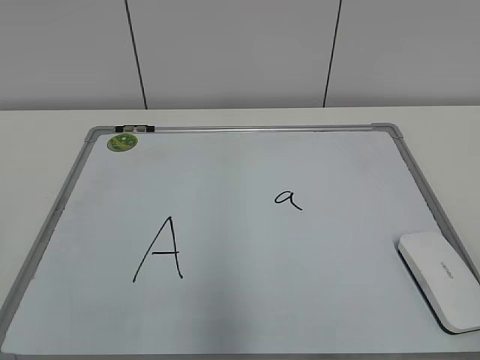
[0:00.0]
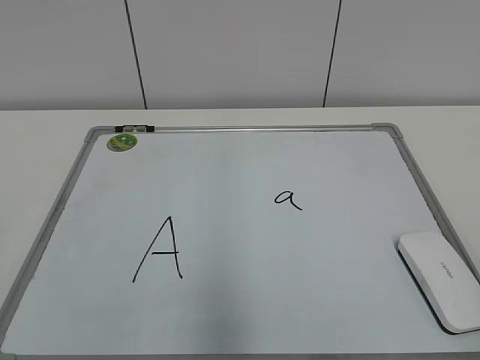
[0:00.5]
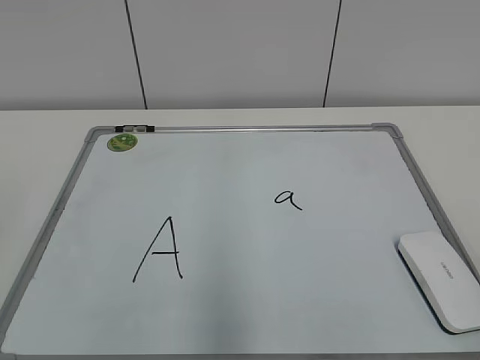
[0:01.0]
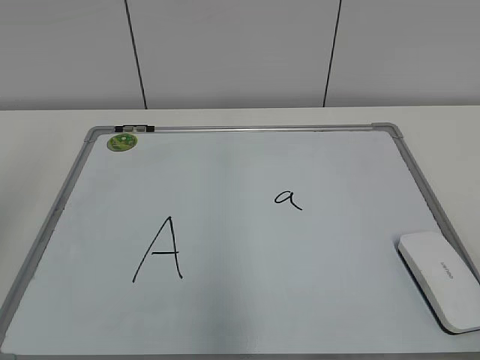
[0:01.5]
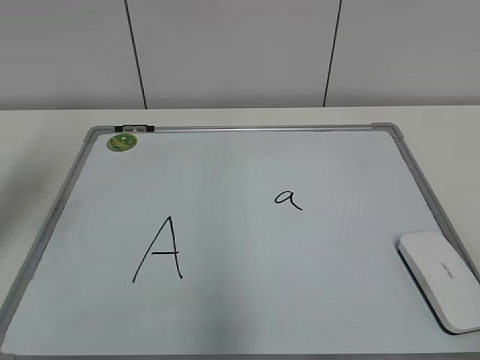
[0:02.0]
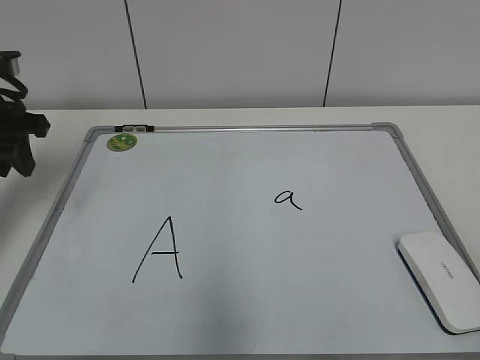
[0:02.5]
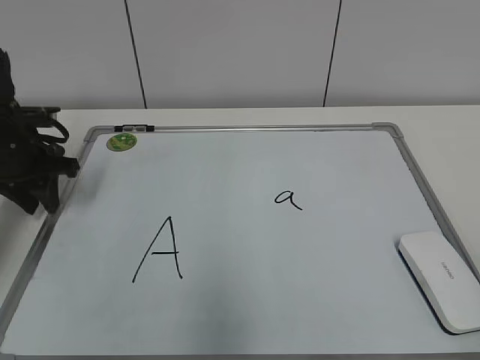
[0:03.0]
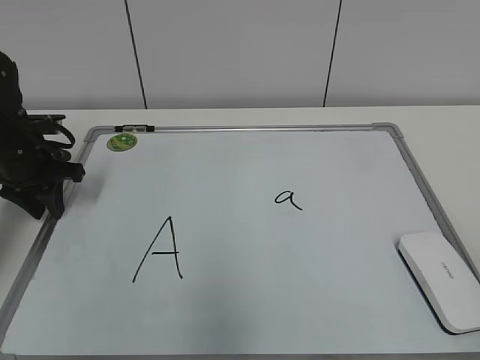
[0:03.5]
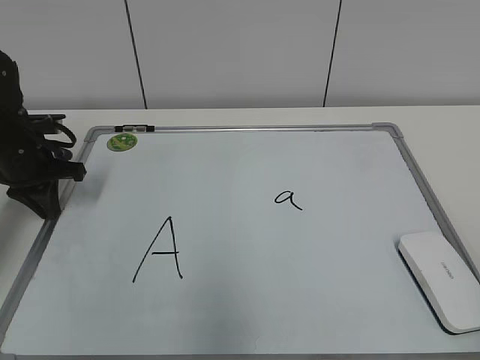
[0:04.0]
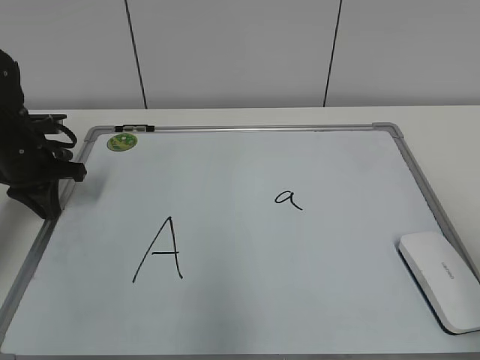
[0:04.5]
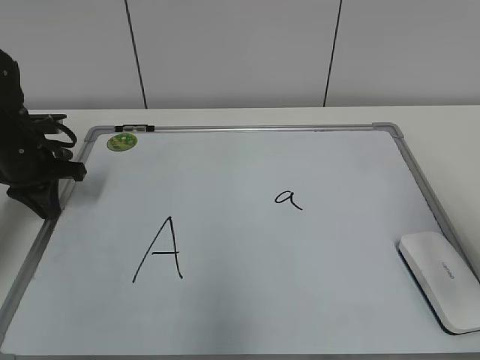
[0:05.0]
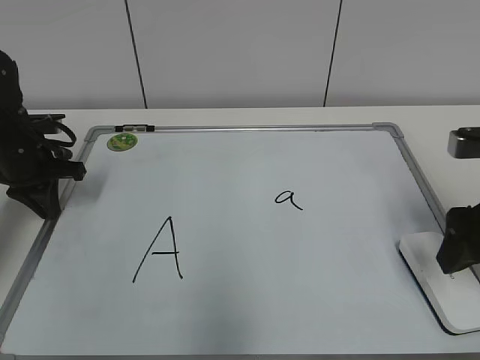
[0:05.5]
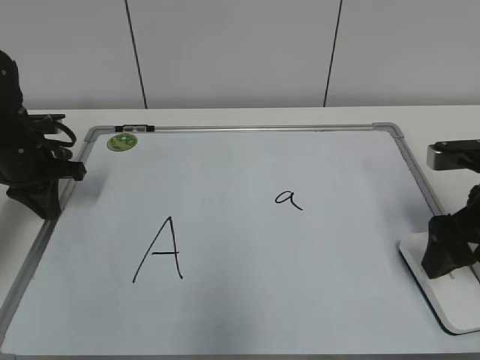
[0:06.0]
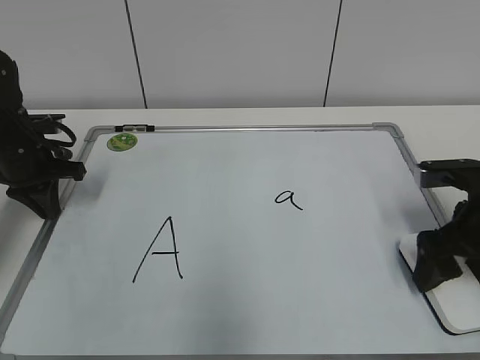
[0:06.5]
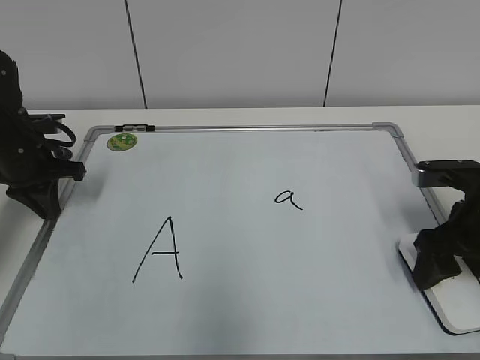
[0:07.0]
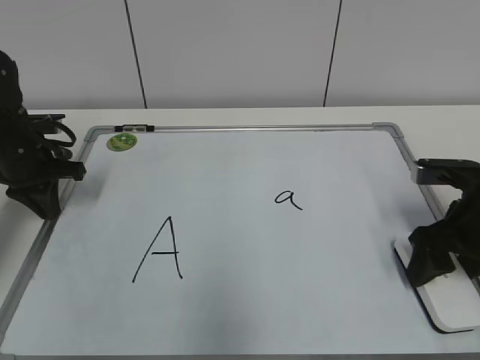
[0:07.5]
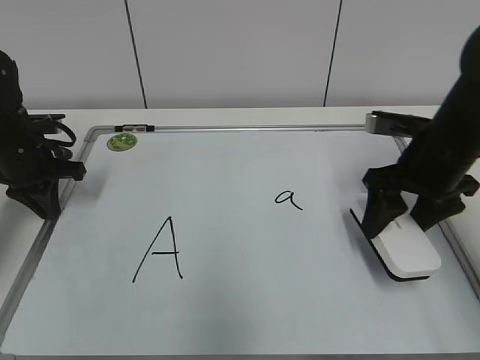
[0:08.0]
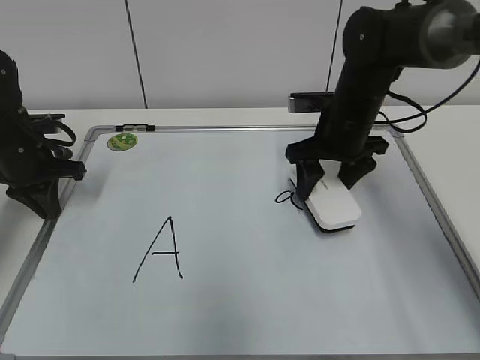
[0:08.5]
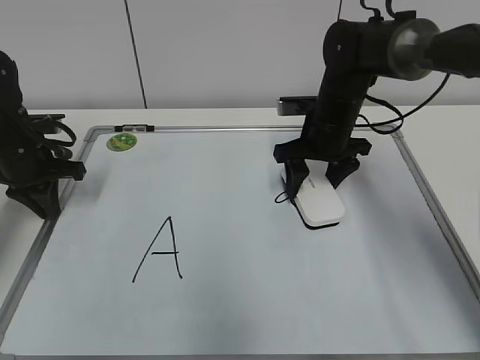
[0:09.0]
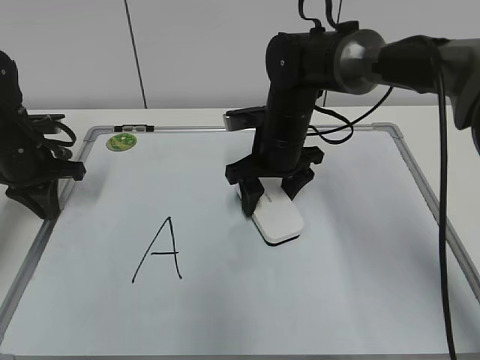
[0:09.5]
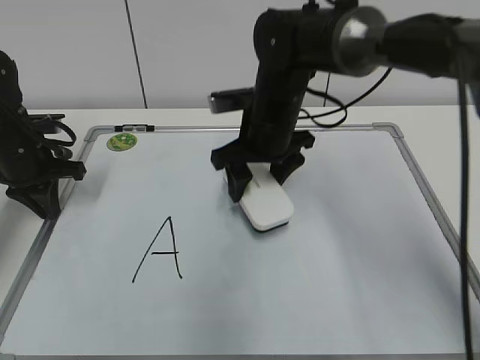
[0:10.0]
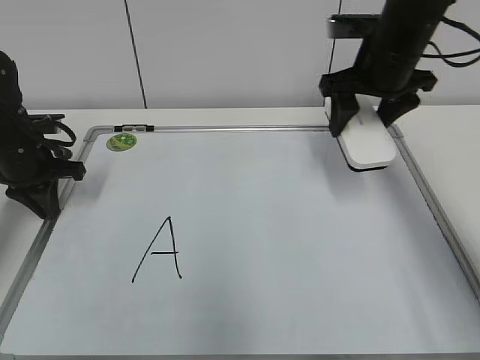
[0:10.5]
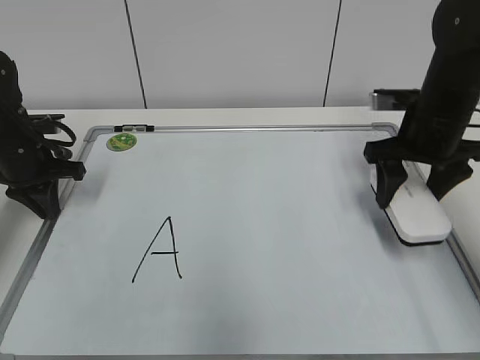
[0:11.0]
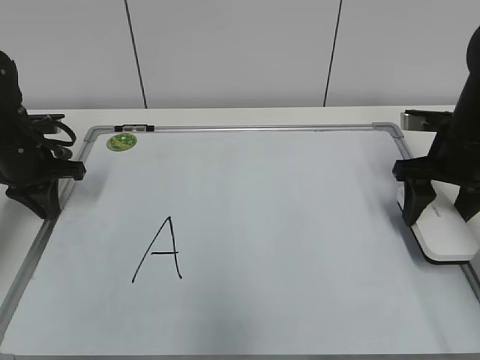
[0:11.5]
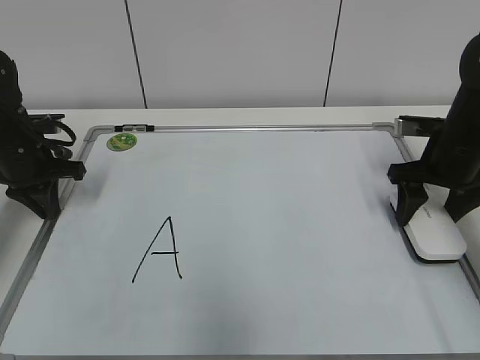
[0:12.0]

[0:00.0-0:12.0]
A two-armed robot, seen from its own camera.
Task of the whole recording: pick up the eraser on the blackboard and erase the letter "a".
Step, 0:00.0 to 0:03.5: Hold the drawing board steady with your left hand.
Step, 0:04.5 to 0:07.0: Grab the eraser with your right hand.
Step, 0:07.5 to 0:09.5: Erase the letter a with your right hand.
0:02.0 to 0:04.0: The left gripper heads downward and forward, covering roughly 20 cm, and closes up.
0:04.0 to 0:06.0: The right gripper shifts roughly 30 cm forward, and opens.
0:06.0 to 0:08.0: The right gripper travels forward by roughly 5 cm, and closes up.
0:08.0 to 0:10.0: The right gripper shifts about 20 cm to the left and forward.
0:10.0 to 0:12.0: The right gripper goes roughly 25 cm to the right.

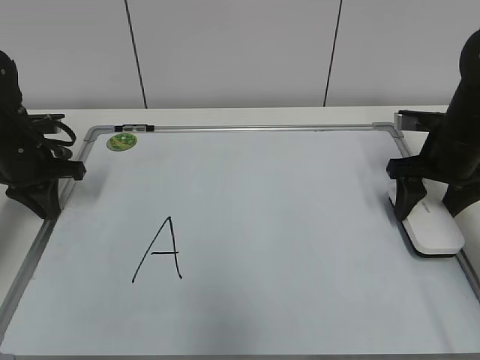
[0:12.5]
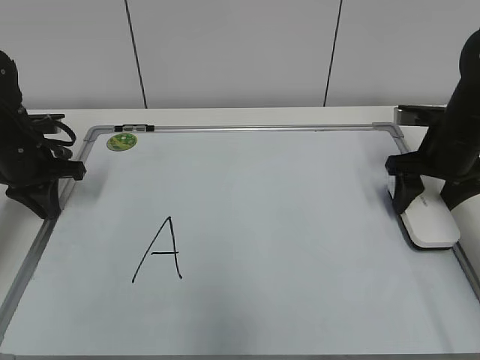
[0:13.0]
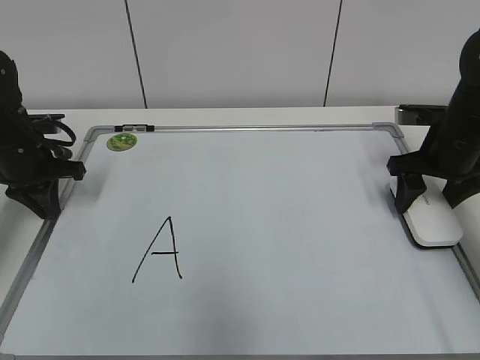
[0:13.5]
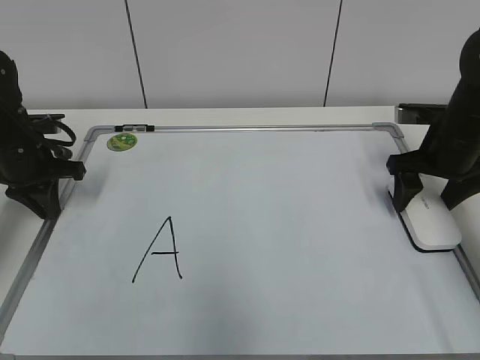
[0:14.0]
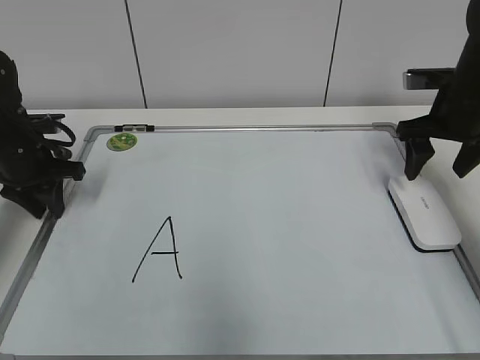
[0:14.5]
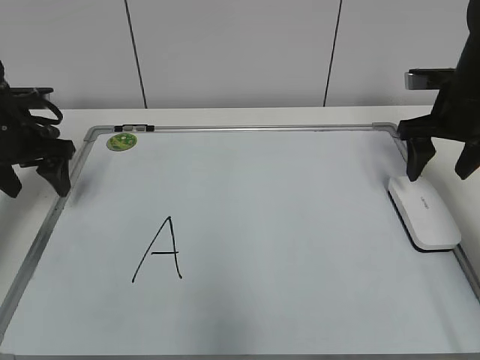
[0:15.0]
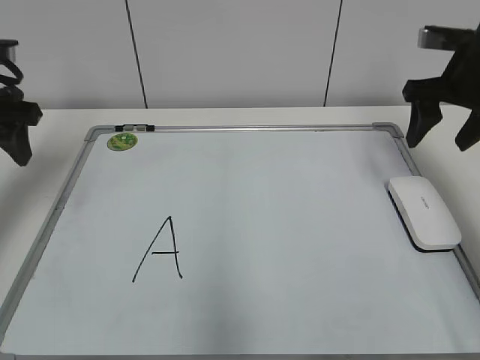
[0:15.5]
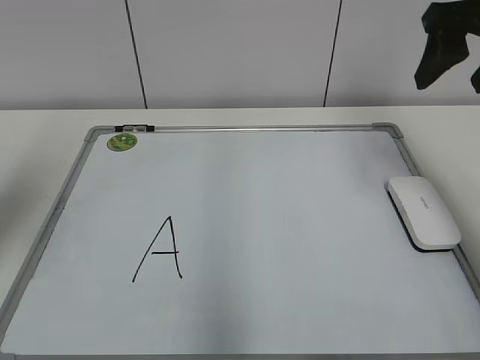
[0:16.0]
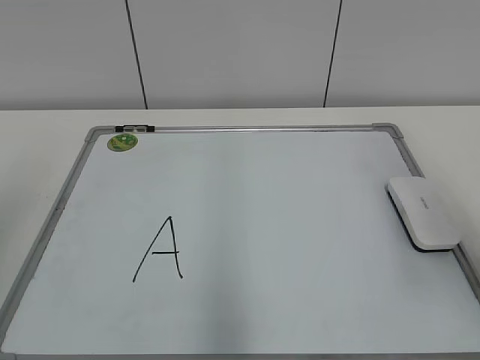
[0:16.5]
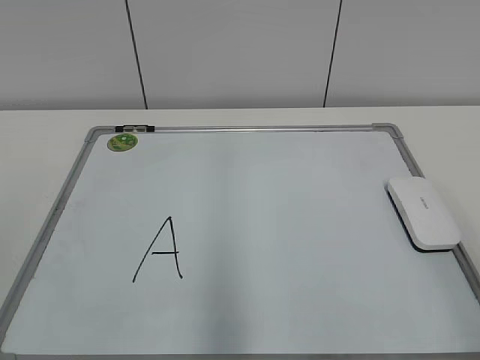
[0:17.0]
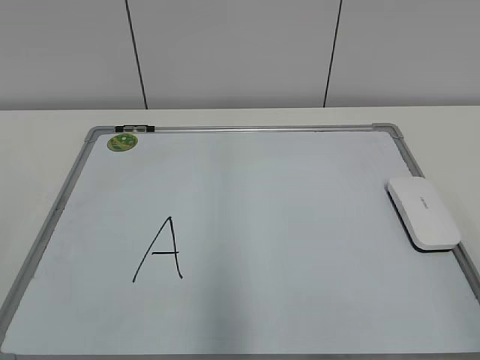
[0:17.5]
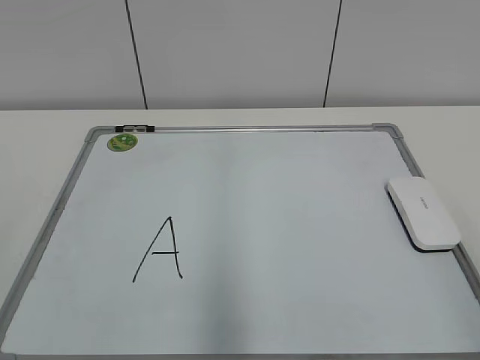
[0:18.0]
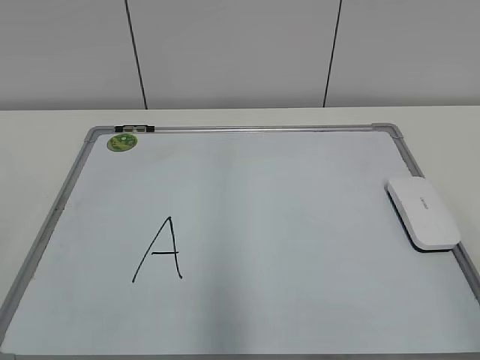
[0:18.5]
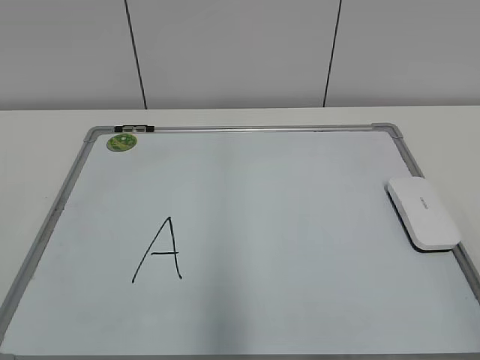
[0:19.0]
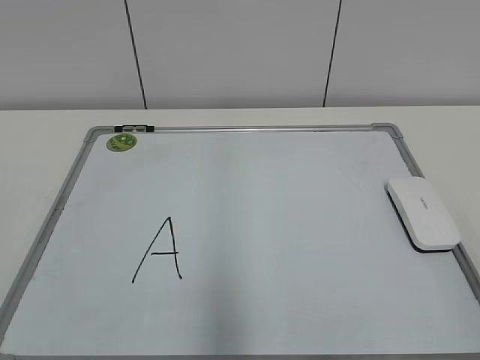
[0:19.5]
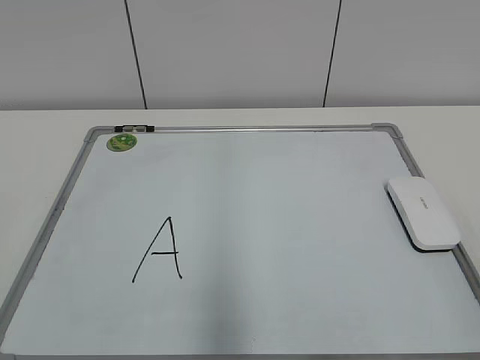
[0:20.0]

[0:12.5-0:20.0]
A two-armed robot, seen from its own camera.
Task of the whole recording: pick up the eraser on the blackboard and erase the letter "a".
0:12.5 to 0:14.5: The right gripper changes place by some 5 cm, and opens up.
0:14.5 to 0:16.5: The grippers both shift backward and upward by roughly 30 cm. The left gripper opens.
0:16.5 to 0:18.0: The right gripper is displaced backward by some 20 cm.

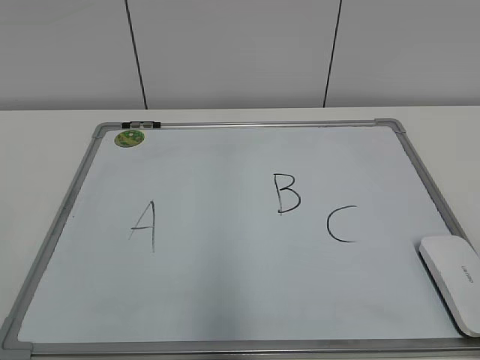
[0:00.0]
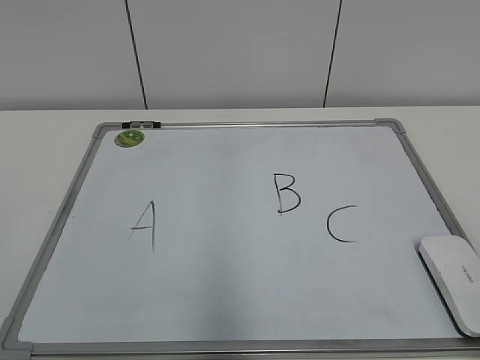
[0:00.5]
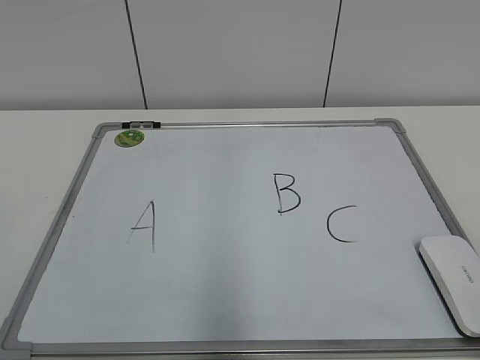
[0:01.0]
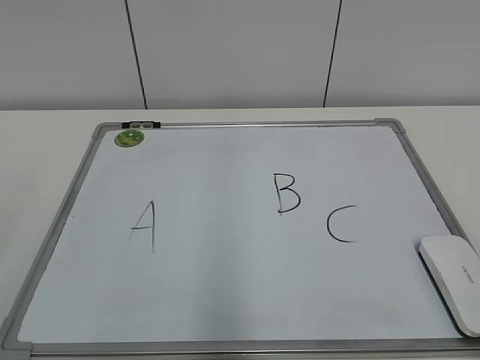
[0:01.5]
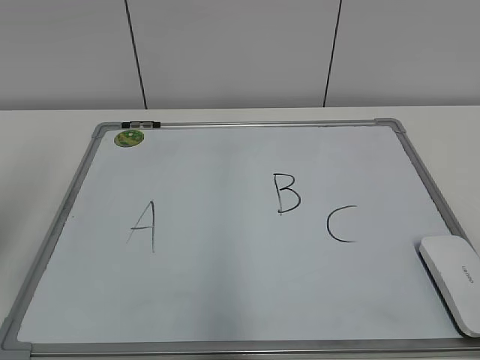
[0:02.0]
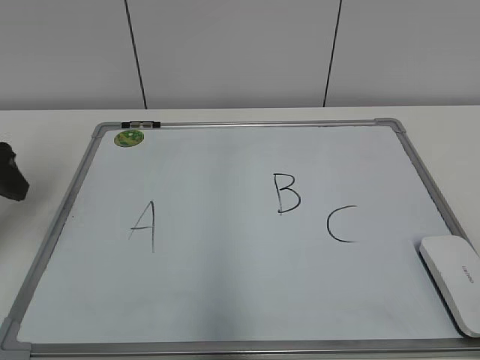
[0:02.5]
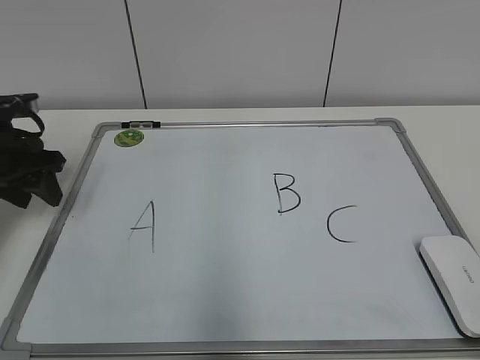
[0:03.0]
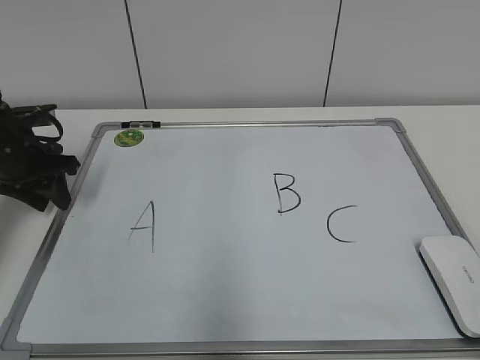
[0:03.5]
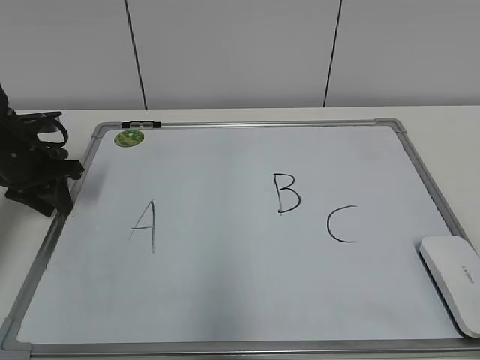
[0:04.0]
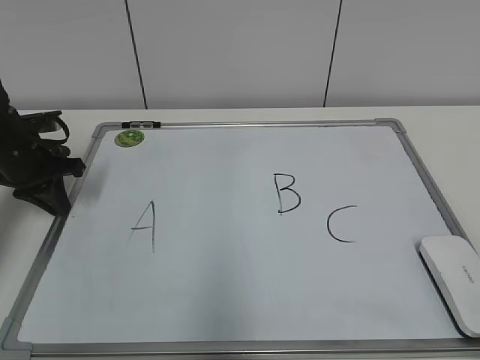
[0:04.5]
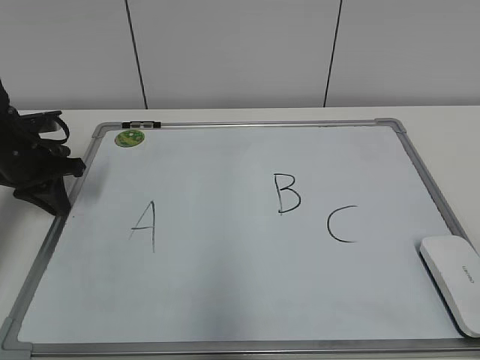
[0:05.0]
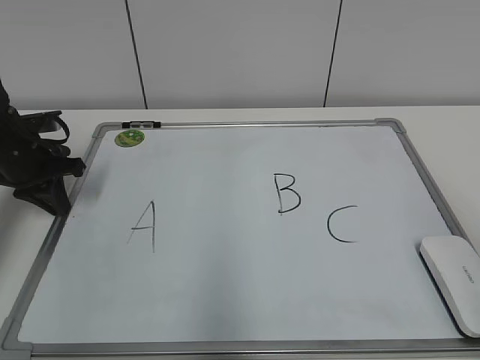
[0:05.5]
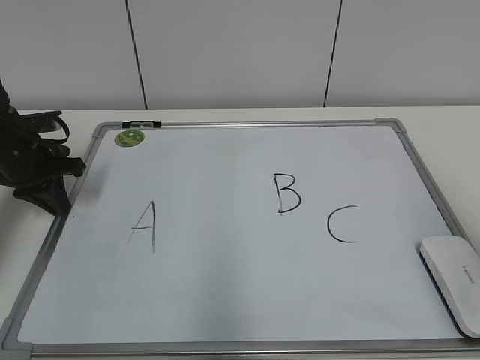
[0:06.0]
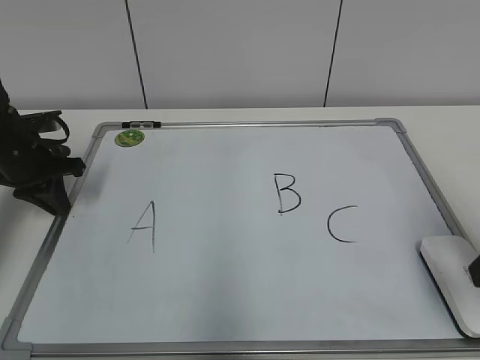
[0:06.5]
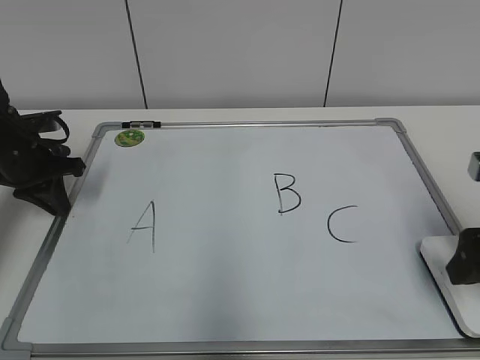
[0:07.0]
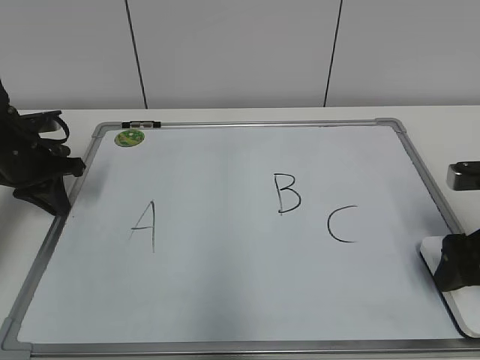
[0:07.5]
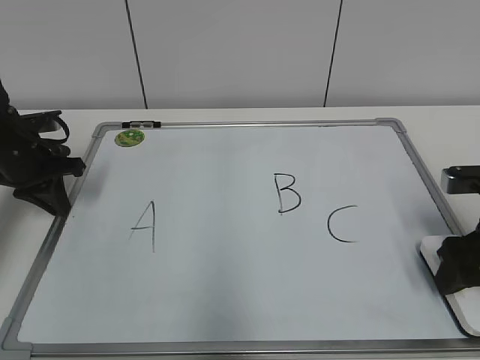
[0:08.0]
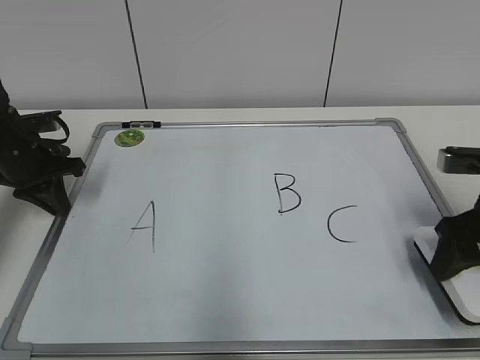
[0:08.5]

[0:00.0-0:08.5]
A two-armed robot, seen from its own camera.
Task of the whole recording: pick up the eraser on the blackboard and erase the letter "B".
Step, 0:00.0 to 0:04.0: Hold the drawing board steady with your left hand.
Step, 0:04.5 to 0:07.5: Grab the eraser with your right hand.
0:02.0 to 0:04.0: The left gripper heads forward and downward, covering roughly 30 cm, and closes its fingers.
0:04.0 to 0:06.5: The right gripper heads forward, covering roughly 20 cm, and opens its fingers; the left gripper closes its fingers.
0:06.5 to 0:08.5: The right gripper goes roughly 10 cm forward, and closes up.
